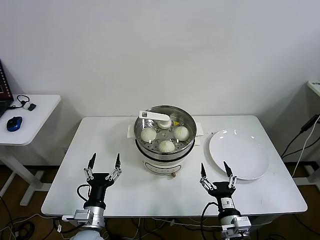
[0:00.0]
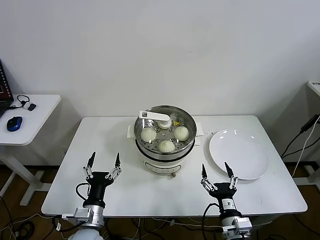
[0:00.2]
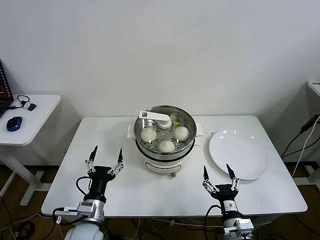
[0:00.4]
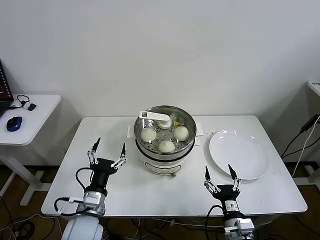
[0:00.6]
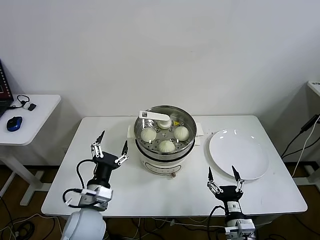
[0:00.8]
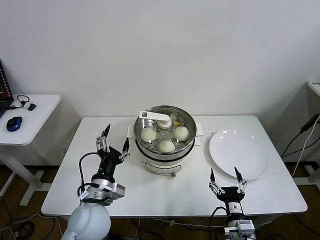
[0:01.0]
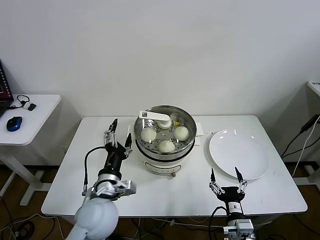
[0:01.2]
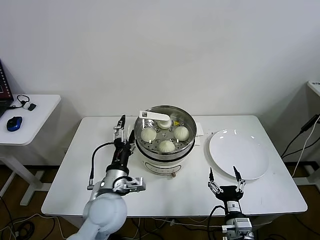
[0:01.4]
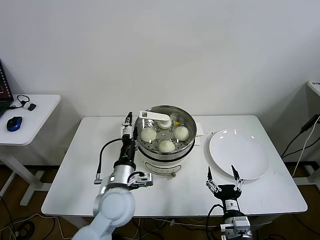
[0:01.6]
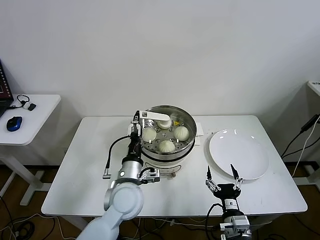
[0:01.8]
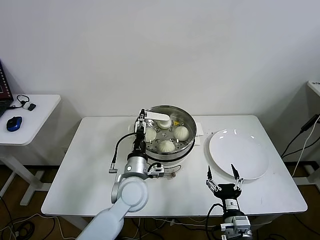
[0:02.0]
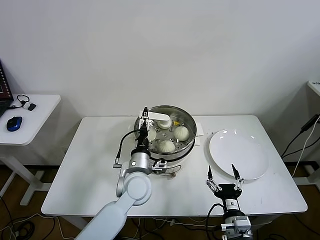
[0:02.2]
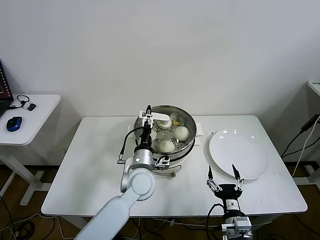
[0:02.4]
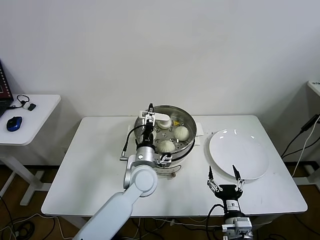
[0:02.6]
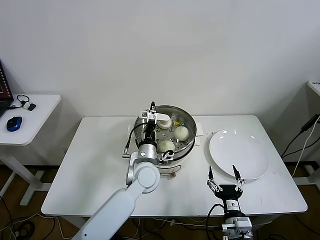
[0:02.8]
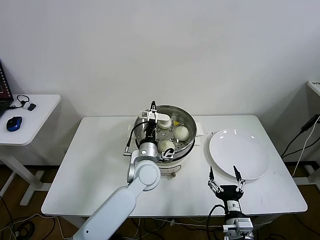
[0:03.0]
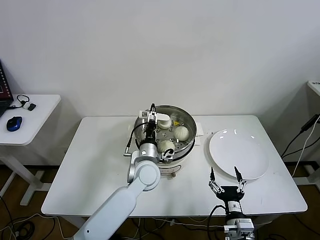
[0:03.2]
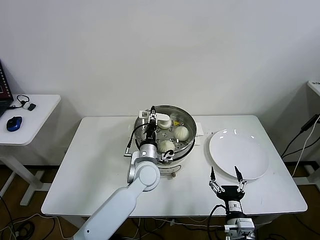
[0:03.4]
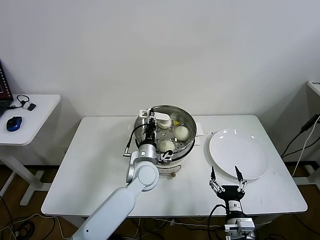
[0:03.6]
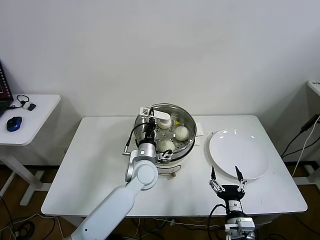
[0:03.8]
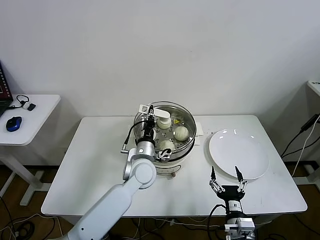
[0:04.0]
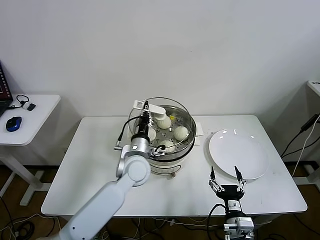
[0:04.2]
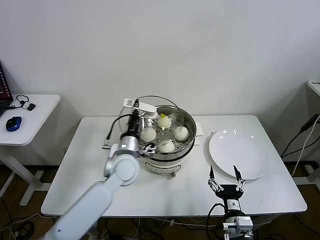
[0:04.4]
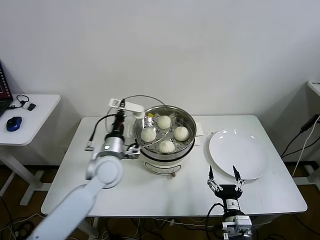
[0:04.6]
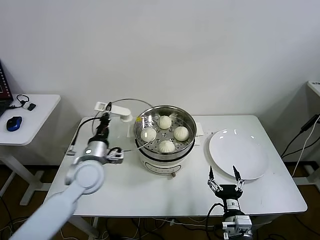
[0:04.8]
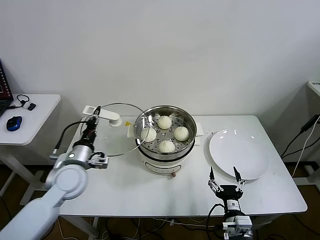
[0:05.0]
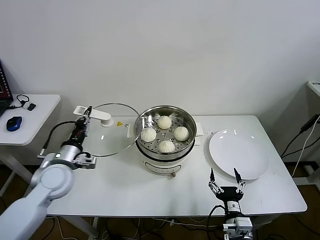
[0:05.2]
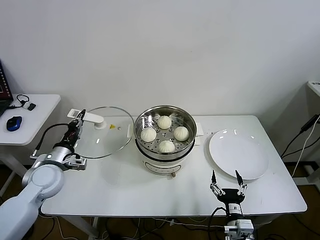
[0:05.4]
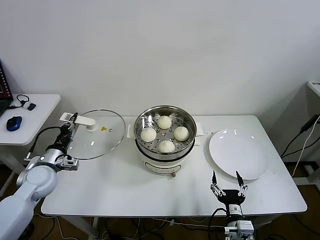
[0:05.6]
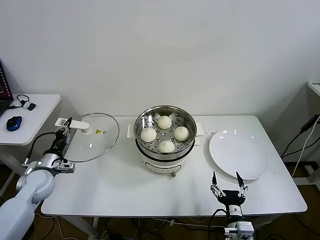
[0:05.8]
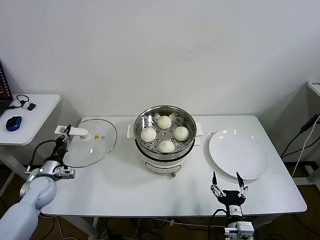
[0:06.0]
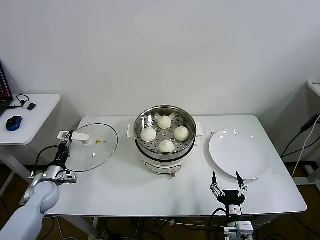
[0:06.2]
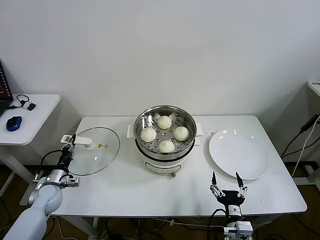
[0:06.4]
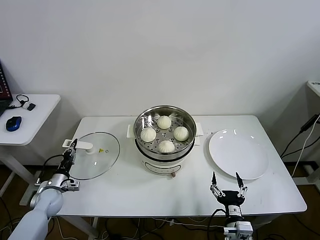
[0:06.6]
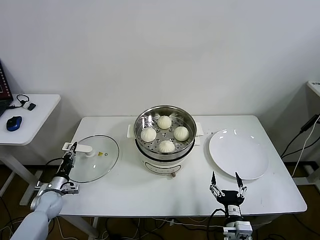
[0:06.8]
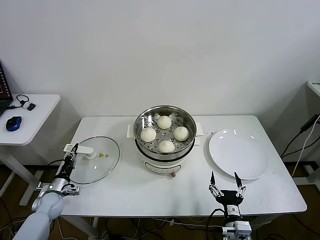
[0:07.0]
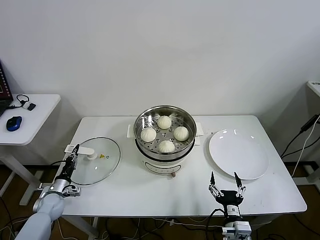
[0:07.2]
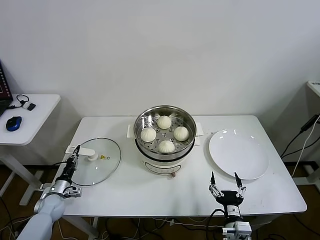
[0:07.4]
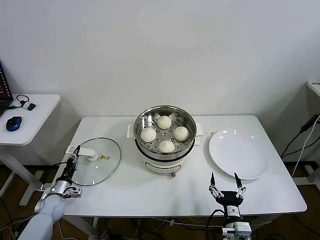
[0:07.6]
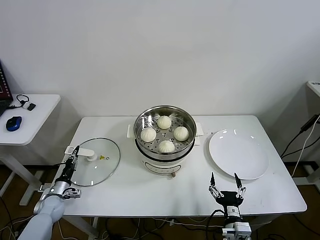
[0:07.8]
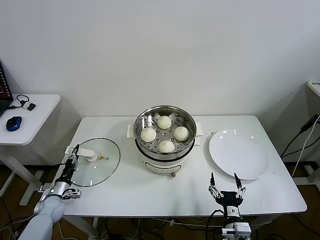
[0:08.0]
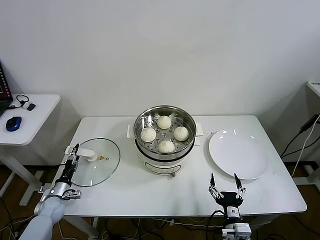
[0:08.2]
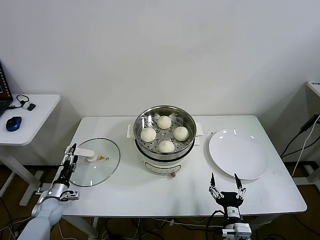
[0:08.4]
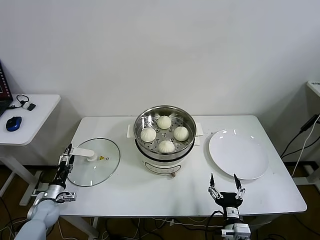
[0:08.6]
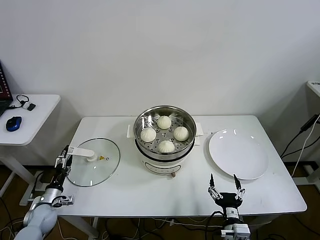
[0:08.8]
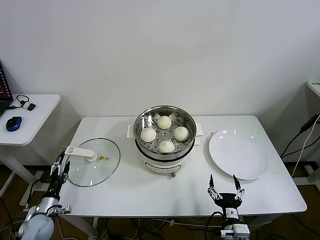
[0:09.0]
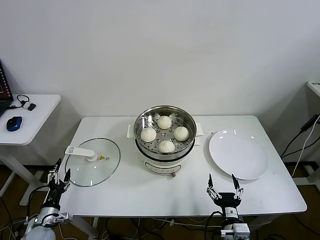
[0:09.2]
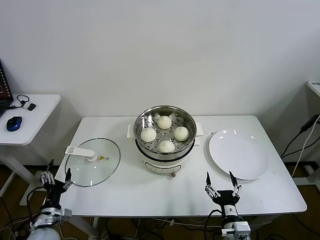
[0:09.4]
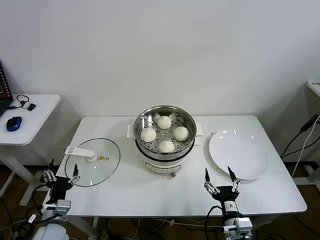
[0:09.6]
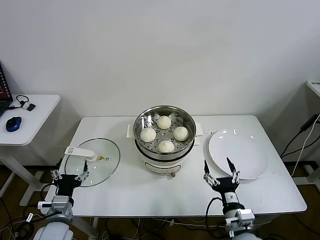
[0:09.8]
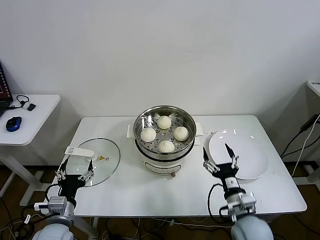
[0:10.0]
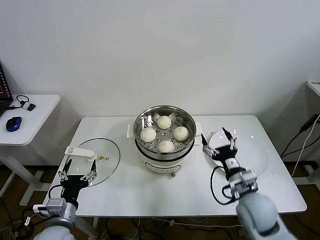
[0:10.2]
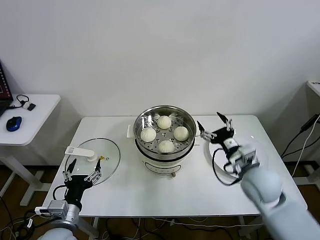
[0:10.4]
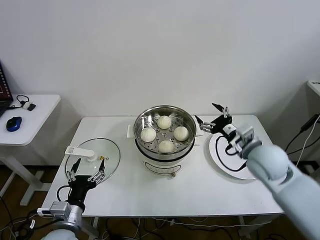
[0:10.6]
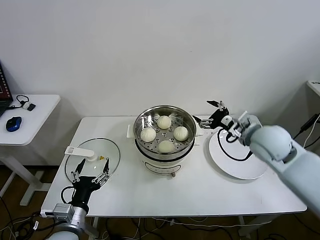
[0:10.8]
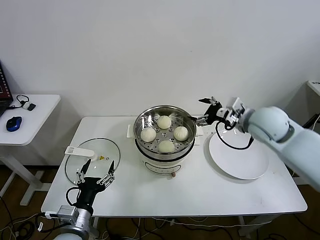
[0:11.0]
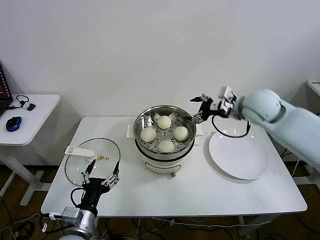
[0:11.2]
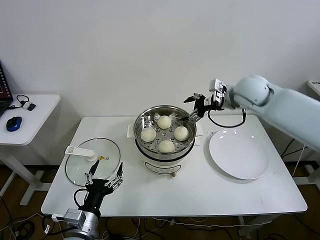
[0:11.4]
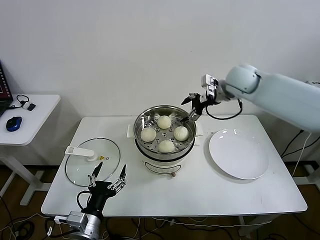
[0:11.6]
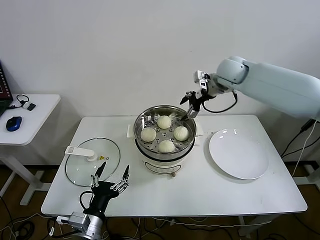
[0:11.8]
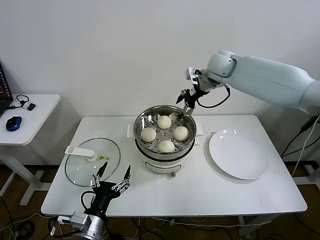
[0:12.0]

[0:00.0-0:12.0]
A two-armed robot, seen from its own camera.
Task of the whole recording: take steamed baozi put them in steamer then cover it.
Step, 0.0 to 4.0 s: Grasp the pot lid with left gripper.
Step, 4.2 to 7.8 s: Place the pot lid on the table with left gripper.
1.6 to 3.0 s: The left gripper is displaced forward and to the right by some 10 cm.
3.0 to 4.4 s: The left gripper moves to the left, approximately 5 cm, and closes.
4.4 to 6.0 s: The left gripper moves to the left, about 30 cm.
6.0 to 7.6 s: The left gripper moves downward, roughly 15 cm.
7.6 to 9.0 s: The left gripper shifts some 10 cm backward, and opens up.
9.0 to 10.4 s: The left gripper is displaced to the right, upward and backward by approximately 25 cm; the right gripper shifts some 25 cm forward and upward.
10.4 to 12.0 s: The left gripper is displaced to the right by roughly 5 cm. The right gripper travels forward and upward by some 35 cm.

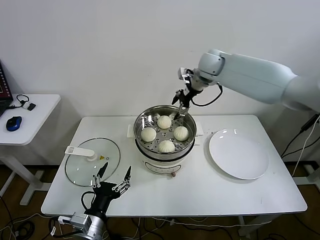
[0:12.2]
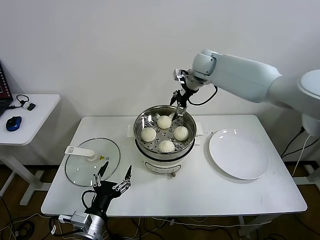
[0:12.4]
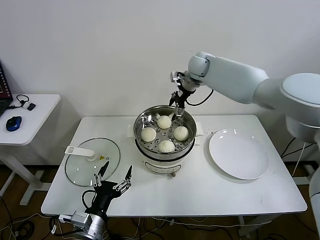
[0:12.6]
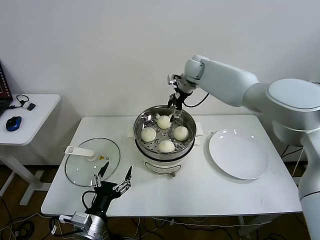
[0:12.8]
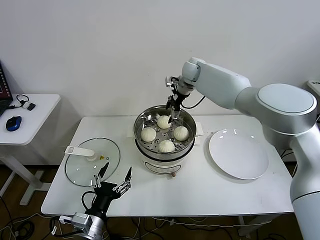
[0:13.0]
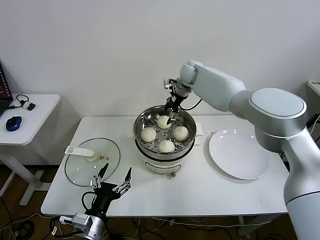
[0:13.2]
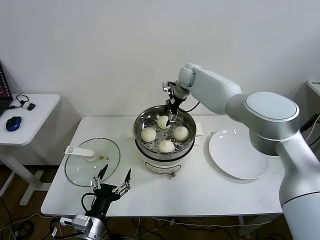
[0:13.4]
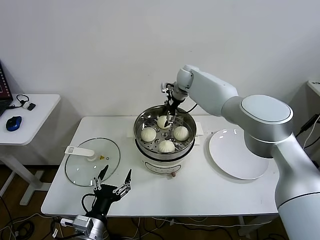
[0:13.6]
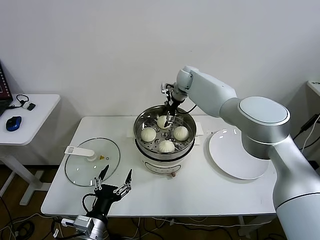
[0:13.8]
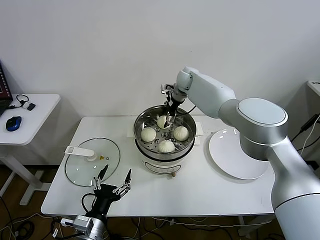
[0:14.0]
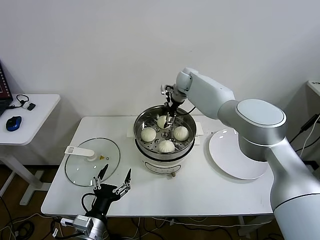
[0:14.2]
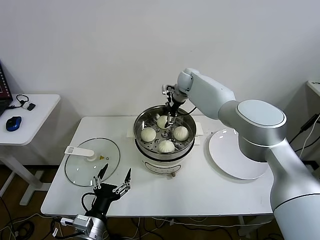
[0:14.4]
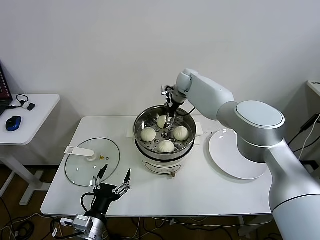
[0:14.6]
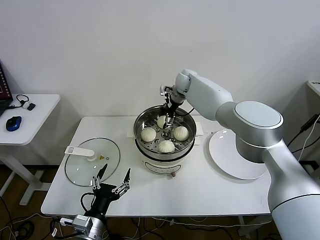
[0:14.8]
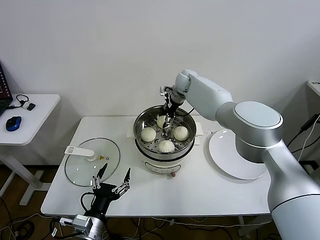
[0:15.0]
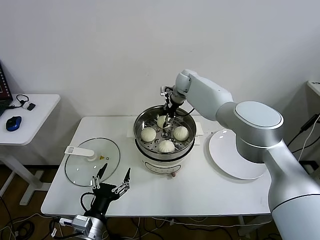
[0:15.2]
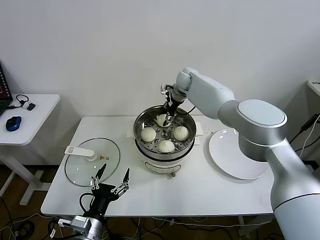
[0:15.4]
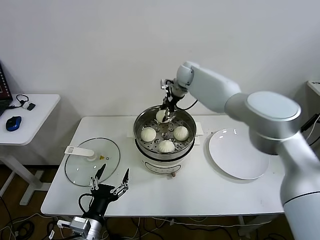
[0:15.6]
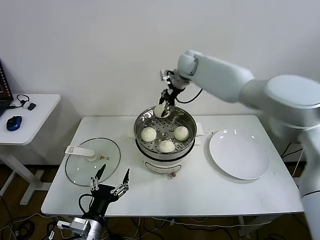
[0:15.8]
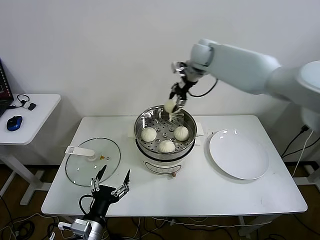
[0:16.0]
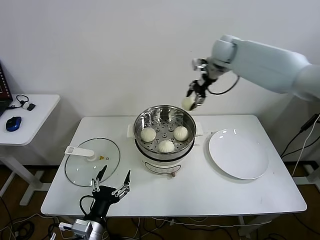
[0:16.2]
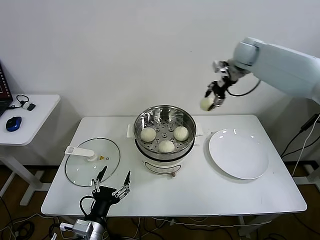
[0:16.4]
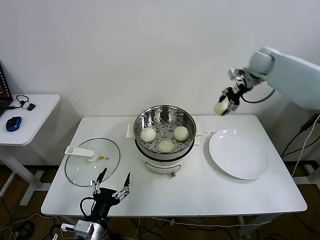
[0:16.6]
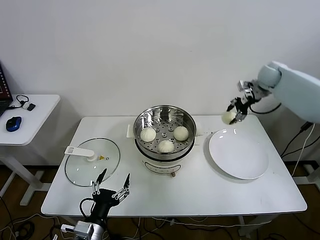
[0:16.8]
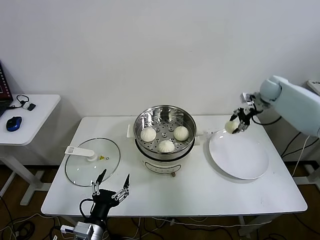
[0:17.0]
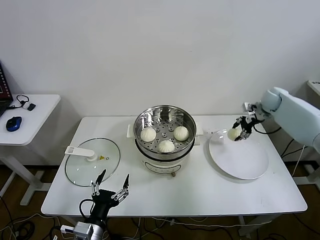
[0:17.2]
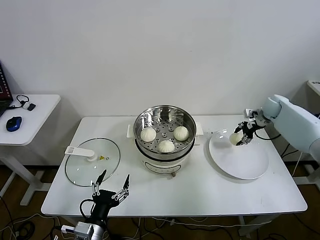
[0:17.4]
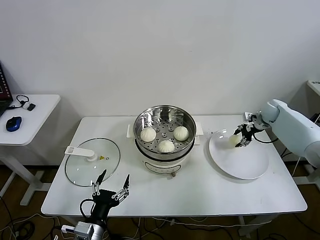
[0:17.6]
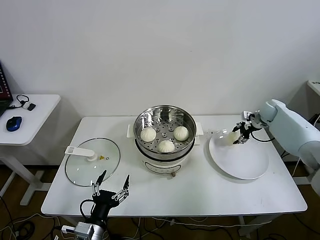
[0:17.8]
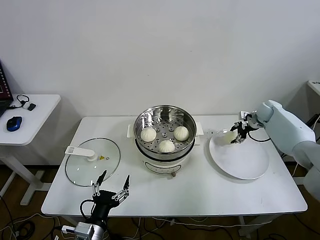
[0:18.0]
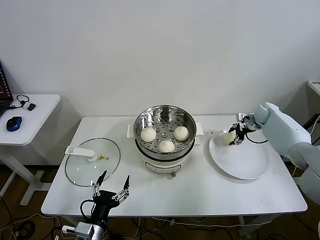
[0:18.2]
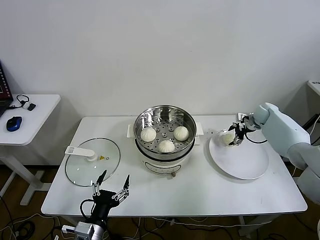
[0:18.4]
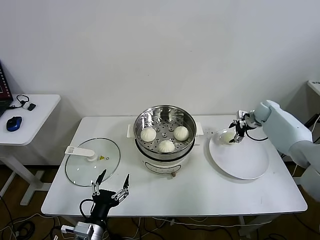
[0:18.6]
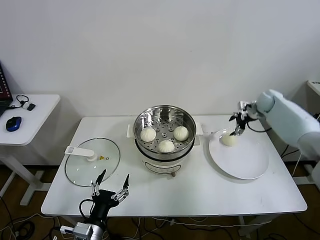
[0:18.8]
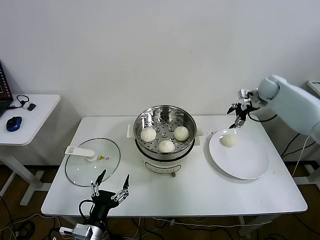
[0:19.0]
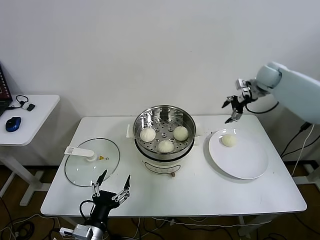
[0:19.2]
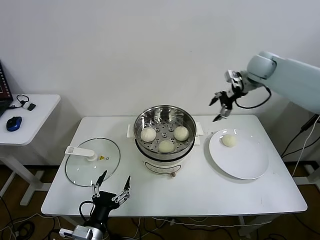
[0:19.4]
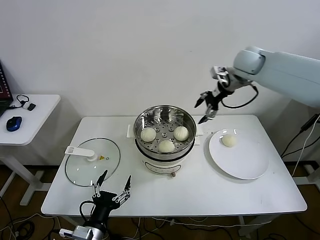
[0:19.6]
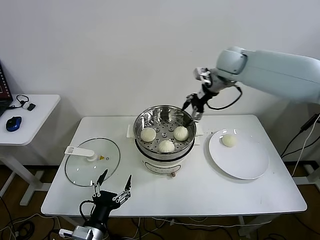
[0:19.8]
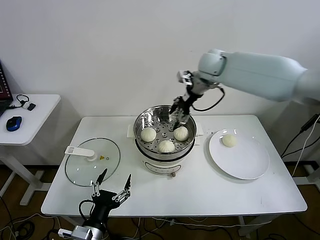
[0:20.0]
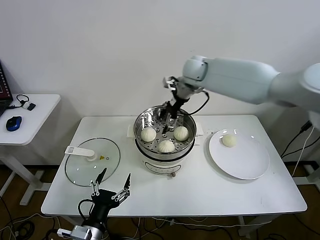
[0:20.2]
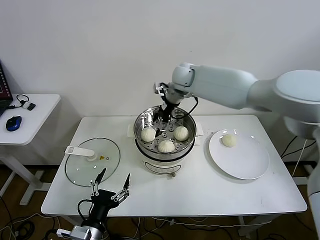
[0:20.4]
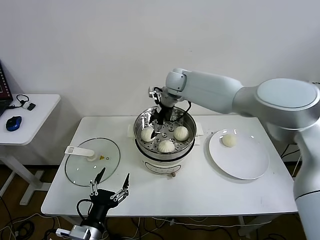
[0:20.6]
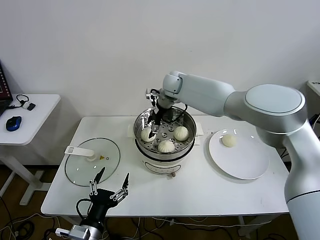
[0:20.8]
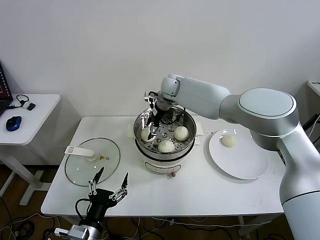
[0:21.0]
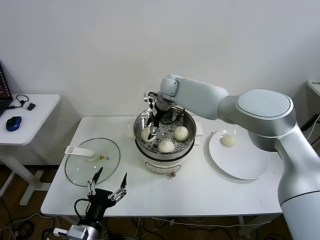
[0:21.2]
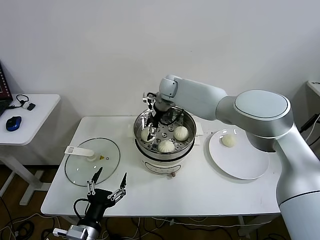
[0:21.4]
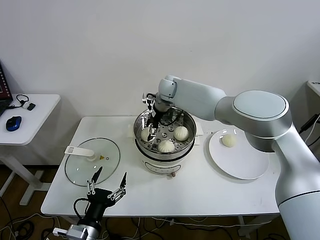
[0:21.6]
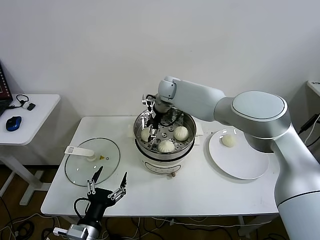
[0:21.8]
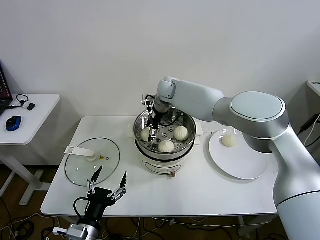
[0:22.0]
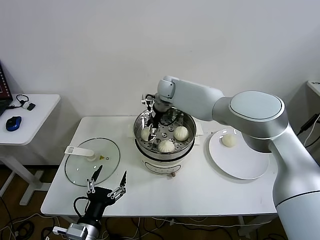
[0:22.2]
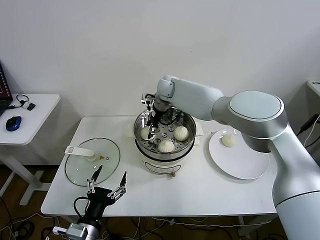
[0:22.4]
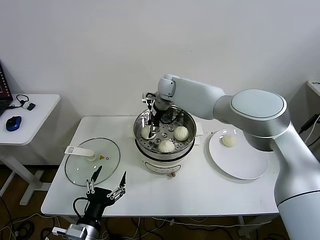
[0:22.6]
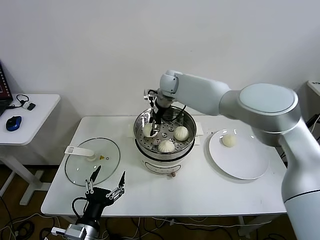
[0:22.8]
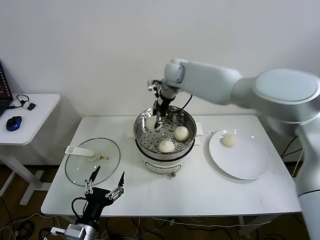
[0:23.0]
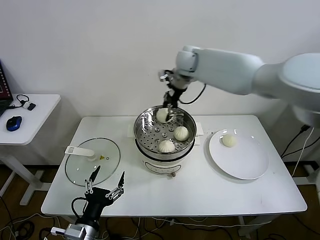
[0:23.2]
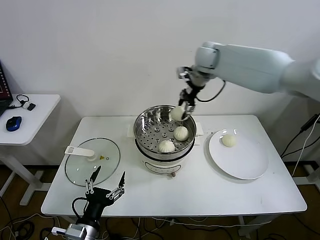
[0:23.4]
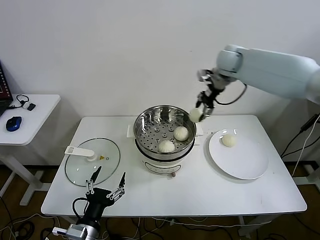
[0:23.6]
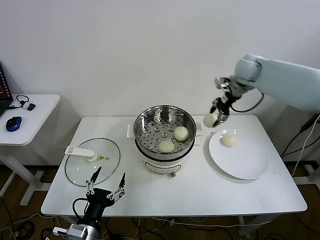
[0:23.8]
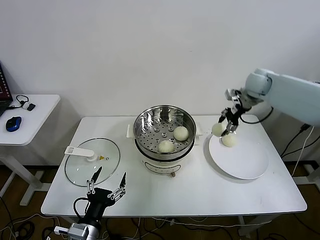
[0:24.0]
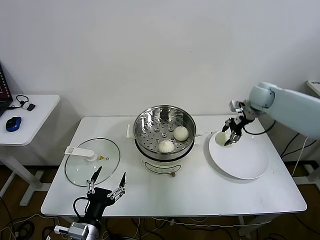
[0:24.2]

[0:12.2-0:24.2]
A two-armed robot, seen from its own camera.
Task of the whole recording: take steamed baozi put them in steamer then cover it.
Step, 12.2 to 15.0 s: Grasp the baozi with right gripper.
Step, 15.4 to 18.2 s: Place the baozi on the plate with right gripper.
Step, 18.4 to 22.4 s: Grasp the baozi with right gripper.
12.2 to 13.8 s: The right gripper moves downward, to the left and forward, about 10 cm.
13.8 to 15.2 s: The right gripper closes its fingers.
15.2 to 16.6 s: The right gripper goes about 25 cm to the right.
16.6 to 18.2 s: The right gripper heads downward, covering approximately 20 cm, and opens up.
18.2 to 19.8 s: The right gripper travels upward and to the left by approximately 35 cm.
19.8 to 21.2 s: The right gripper goes some 20 cm to the left and downward.
21.2 to 22.6 s: The right gripper closes up.
22.6 to 24.2 s: The right gripper goes some 35 cm to the right.
